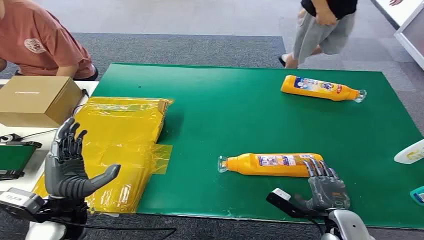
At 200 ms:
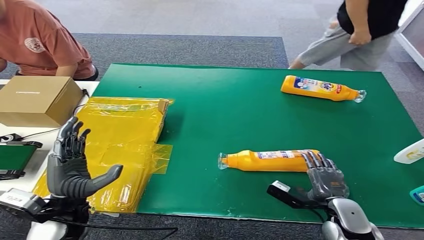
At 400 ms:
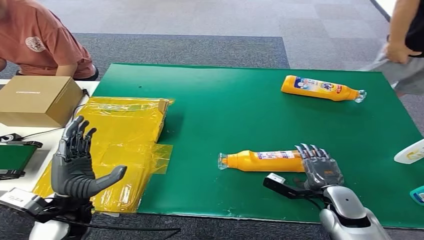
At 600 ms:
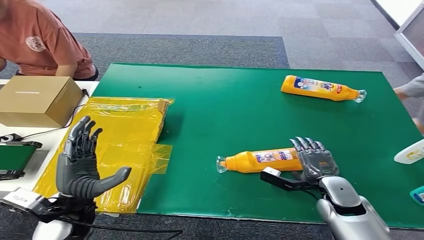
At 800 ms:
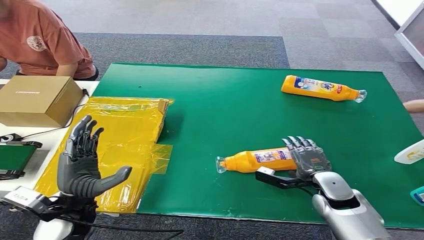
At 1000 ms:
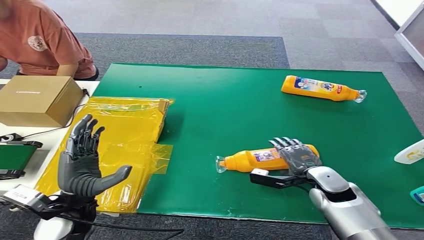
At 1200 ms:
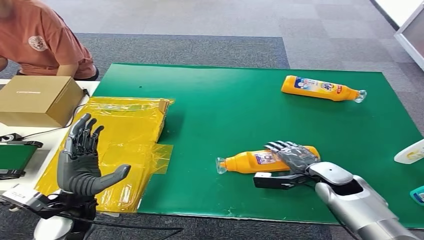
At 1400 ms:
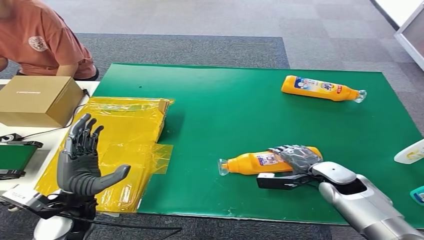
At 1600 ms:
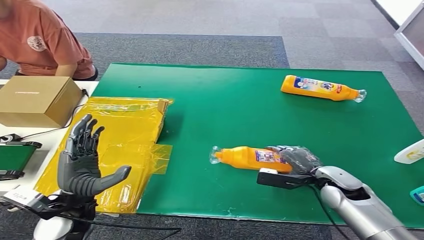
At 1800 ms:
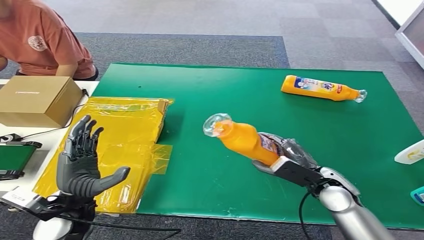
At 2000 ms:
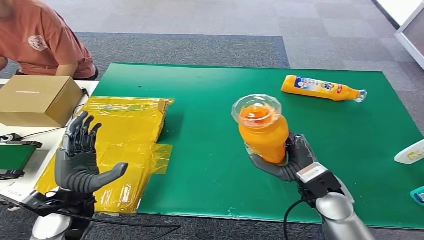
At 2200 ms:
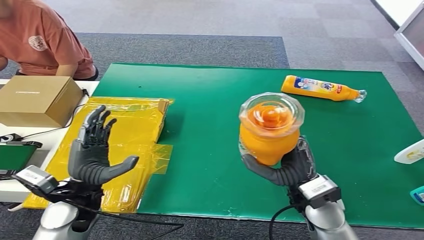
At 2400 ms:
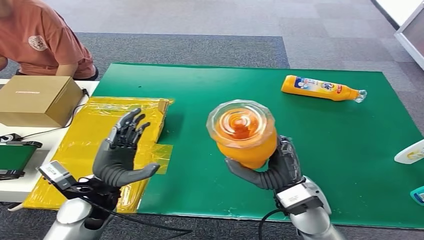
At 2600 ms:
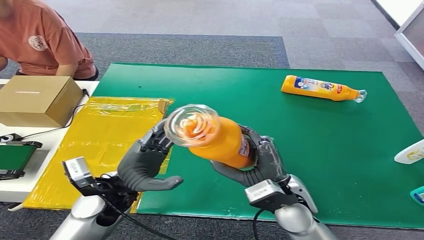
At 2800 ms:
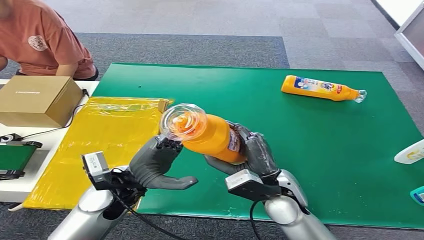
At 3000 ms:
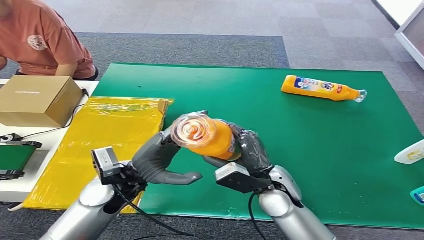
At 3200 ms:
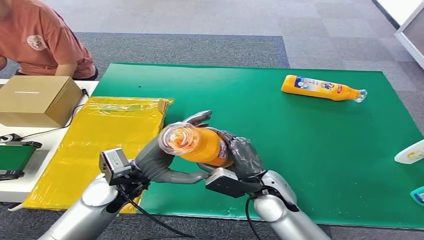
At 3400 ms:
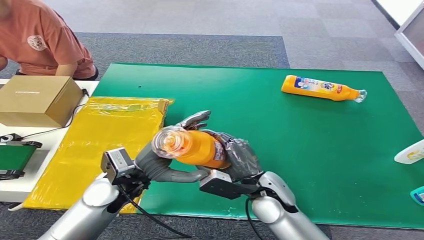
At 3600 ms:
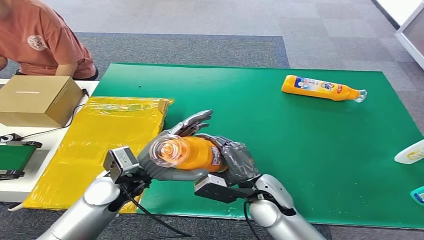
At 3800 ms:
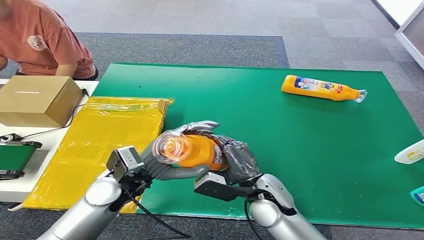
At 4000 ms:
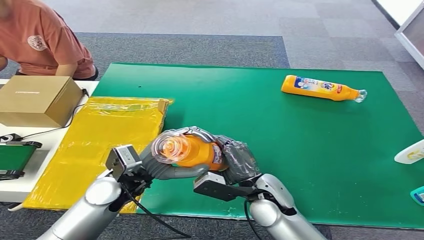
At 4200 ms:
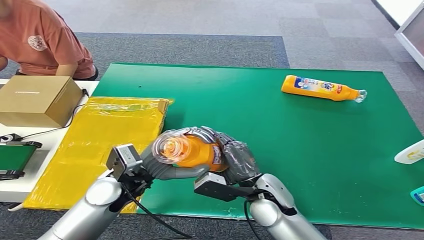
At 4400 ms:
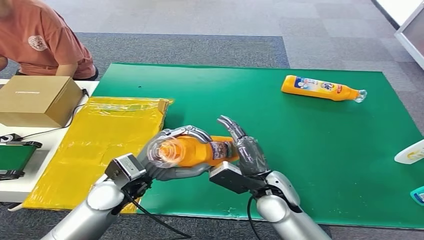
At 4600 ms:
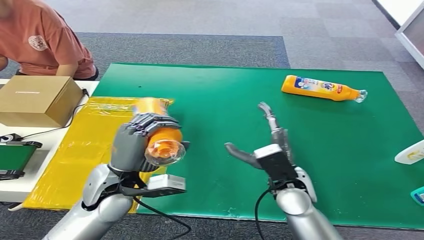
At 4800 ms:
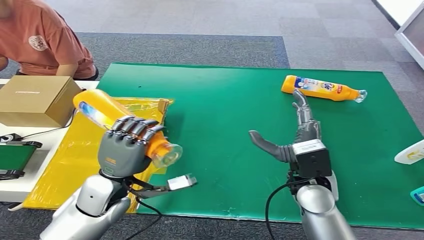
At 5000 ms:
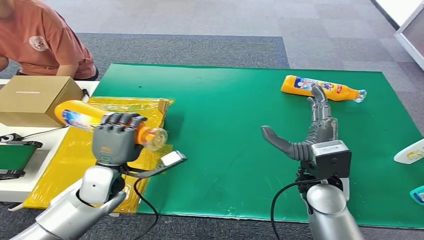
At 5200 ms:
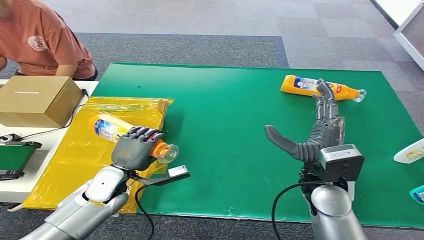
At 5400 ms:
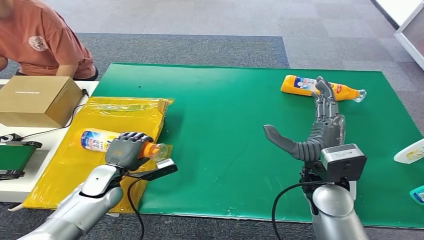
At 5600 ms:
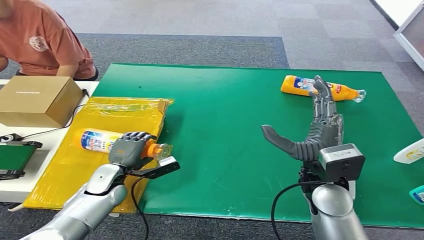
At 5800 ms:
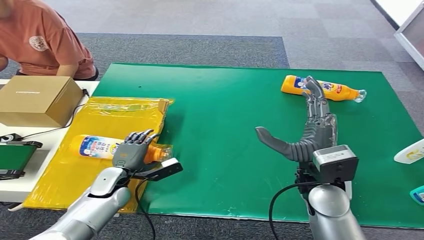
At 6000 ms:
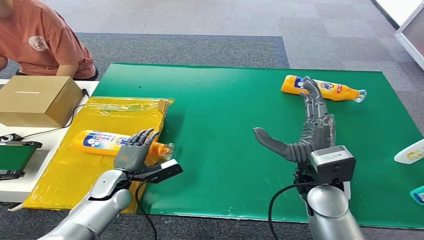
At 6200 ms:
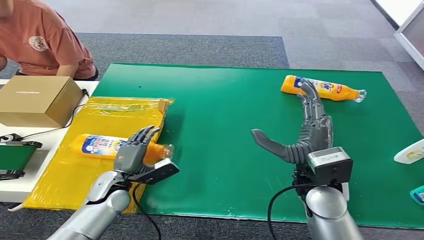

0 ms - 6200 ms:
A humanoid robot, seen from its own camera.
Step, 0 ms - 2000 ms: Pick up the bottle from the table.
Step, 2200 ms - 6000 ms: Turn the bottle to the front side.
4600 ms - 6200 ms: The right hand moves upward, about 5 cm; the left hand moves downward and to the left, roughly 15 cm.

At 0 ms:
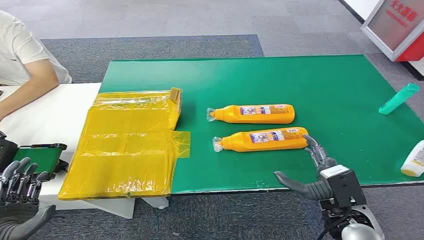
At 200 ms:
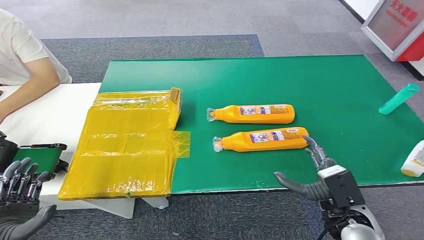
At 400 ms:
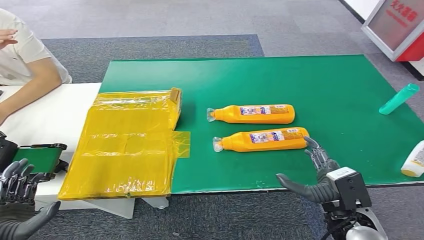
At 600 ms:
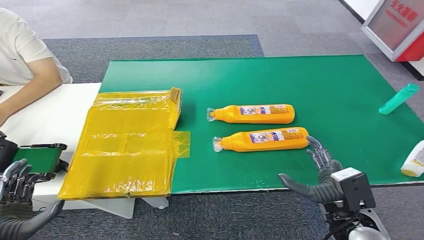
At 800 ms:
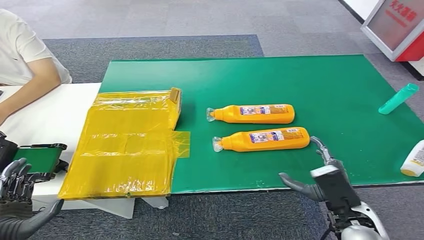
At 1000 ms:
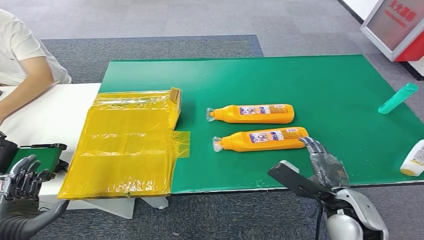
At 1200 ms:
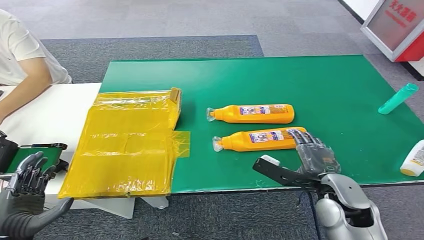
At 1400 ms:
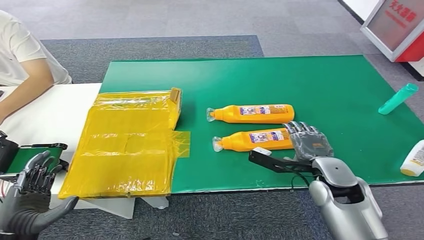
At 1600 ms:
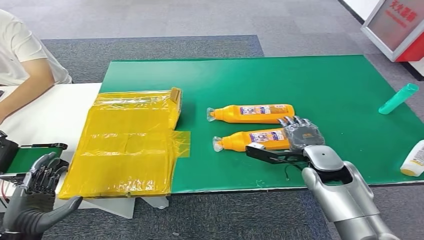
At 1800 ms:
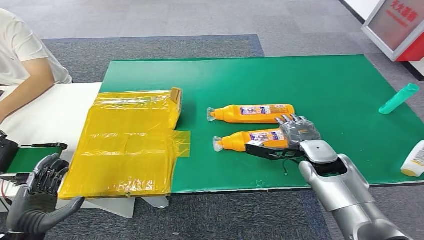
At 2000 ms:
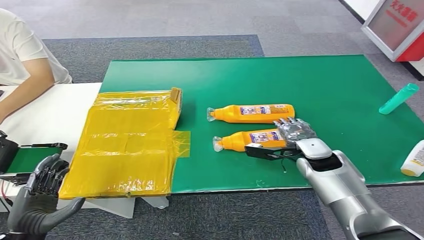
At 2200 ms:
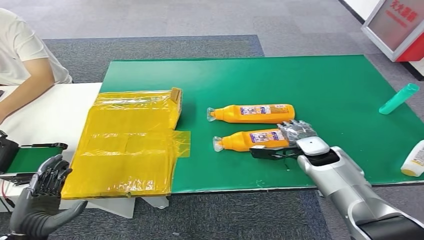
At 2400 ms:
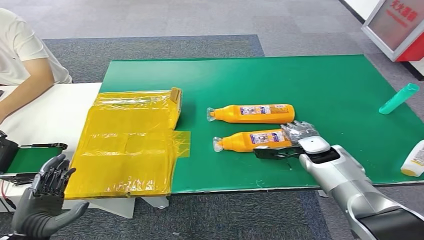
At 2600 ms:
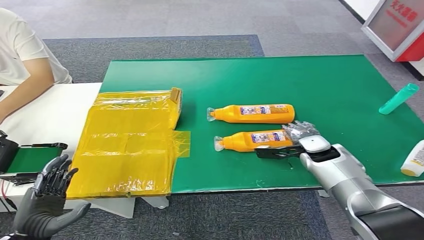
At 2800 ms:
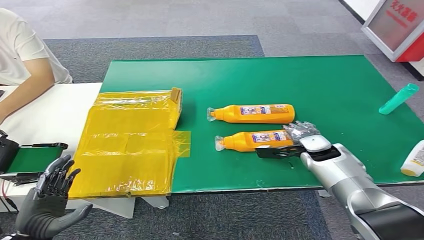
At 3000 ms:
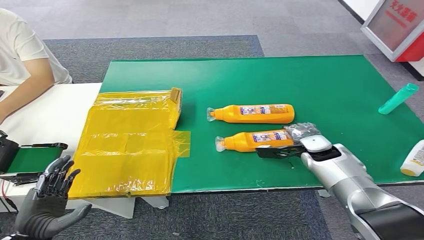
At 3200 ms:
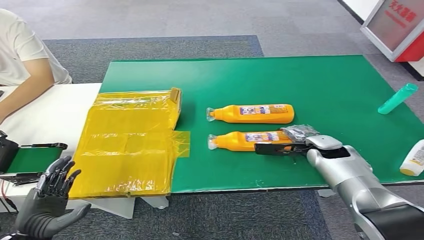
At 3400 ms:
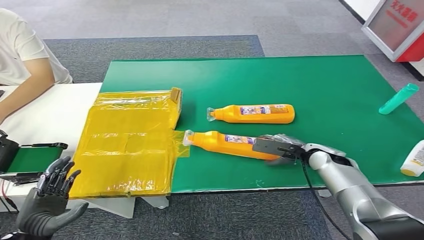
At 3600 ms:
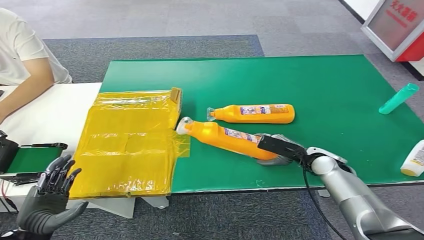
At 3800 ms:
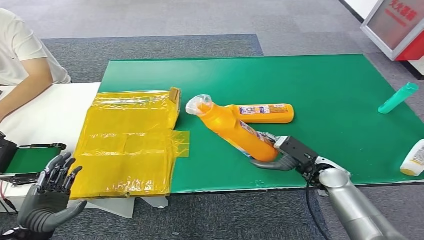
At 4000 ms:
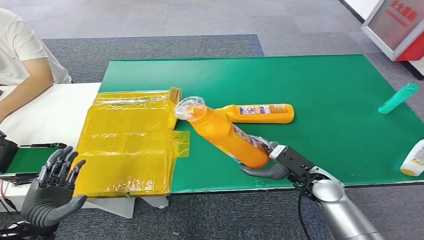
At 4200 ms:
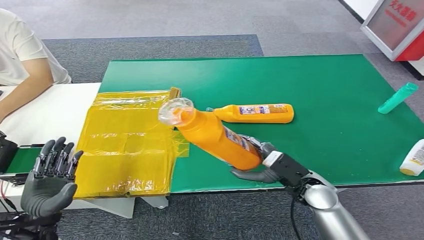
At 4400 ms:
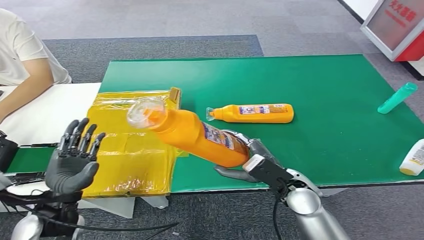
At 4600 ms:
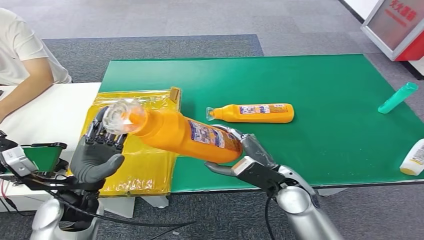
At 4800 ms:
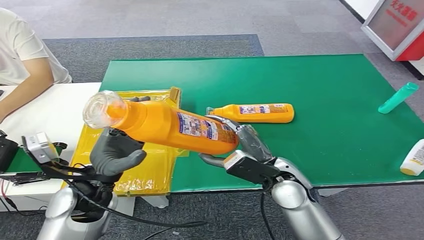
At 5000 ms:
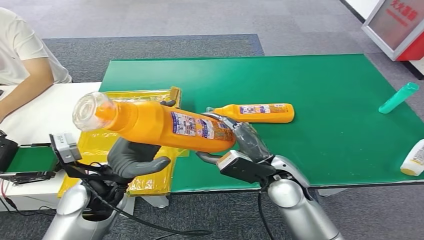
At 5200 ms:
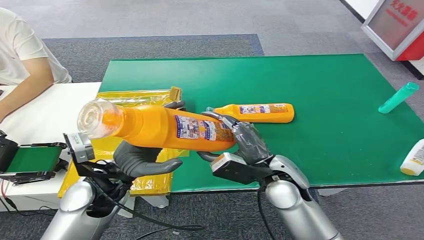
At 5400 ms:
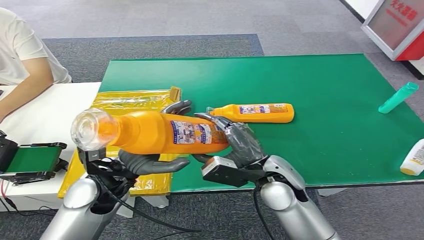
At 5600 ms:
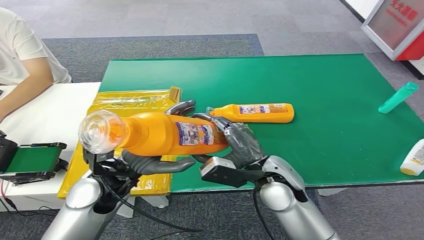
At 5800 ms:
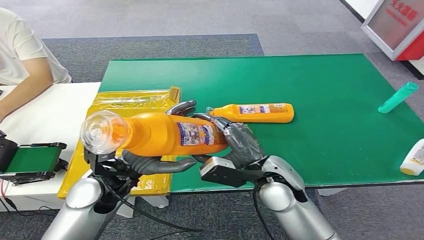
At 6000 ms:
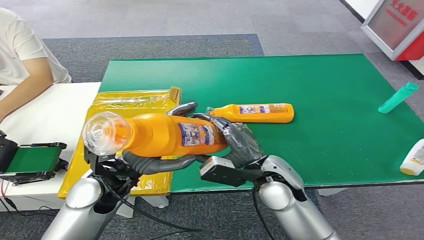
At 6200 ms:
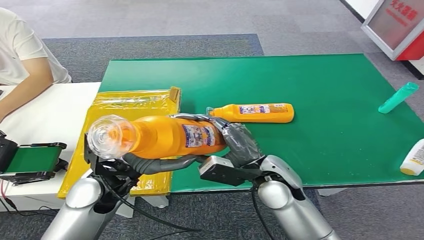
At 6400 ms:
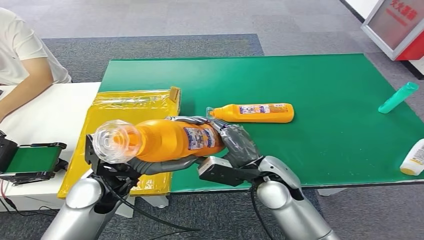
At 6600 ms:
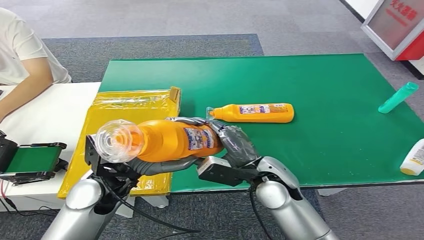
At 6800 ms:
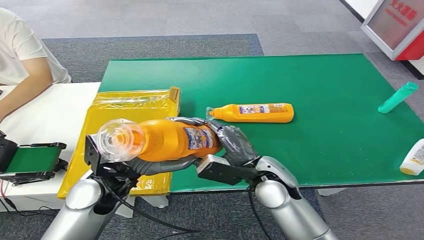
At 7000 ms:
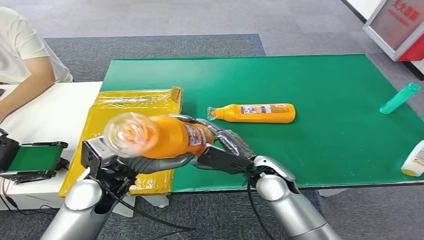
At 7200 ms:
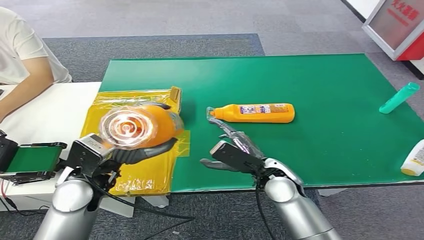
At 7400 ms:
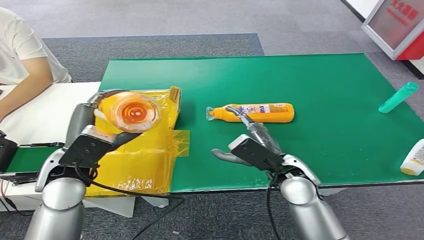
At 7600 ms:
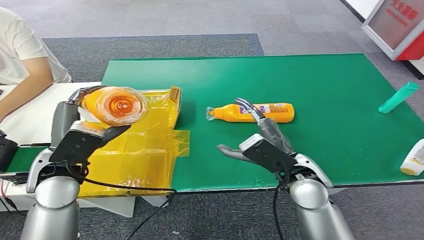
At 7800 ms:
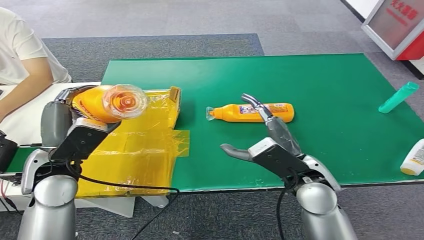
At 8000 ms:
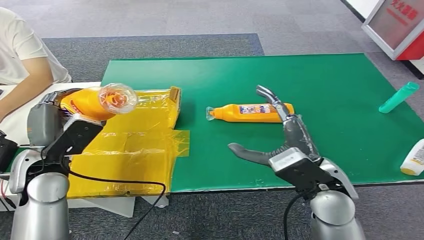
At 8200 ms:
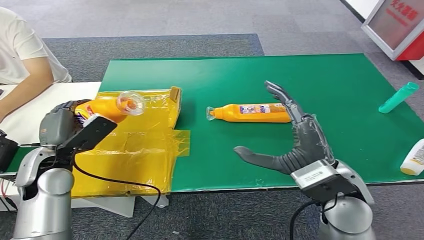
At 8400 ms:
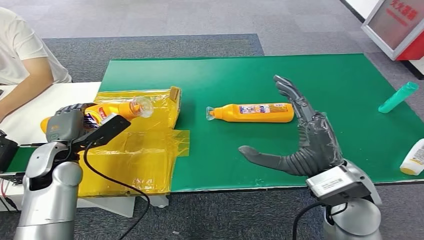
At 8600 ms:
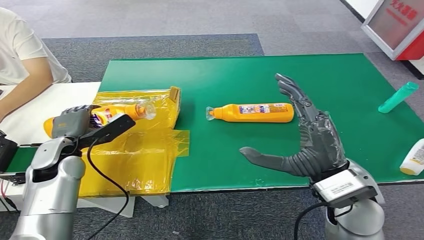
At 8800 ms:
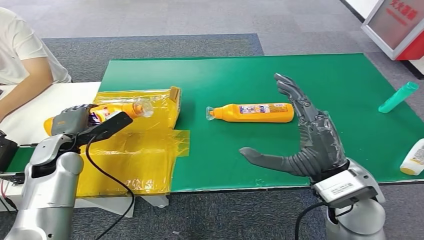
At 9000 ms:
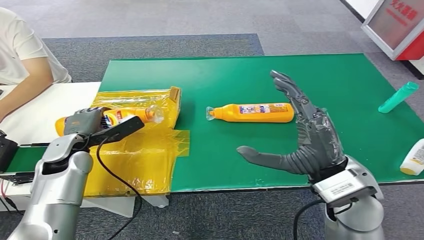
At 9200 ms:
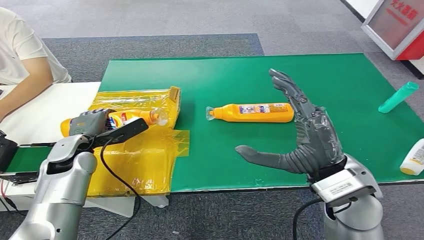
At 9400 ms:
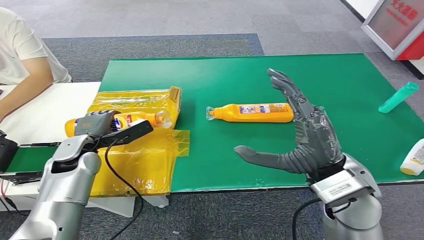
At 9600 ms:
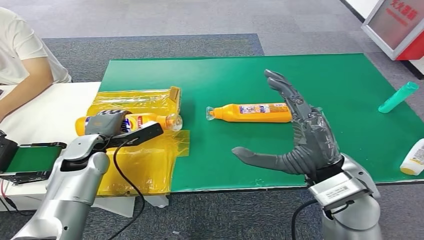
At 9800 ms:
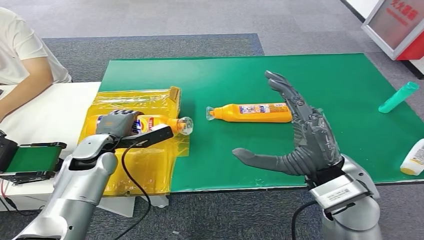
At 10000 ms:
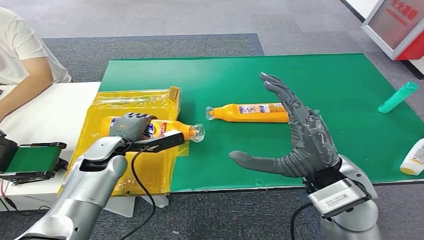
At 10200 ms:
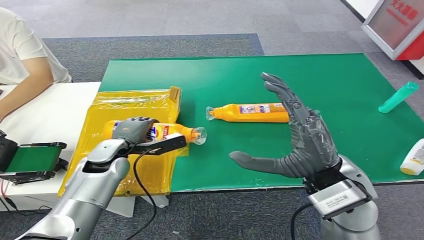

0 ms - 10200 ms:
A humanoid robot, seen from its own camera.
Step, 0 ms - 4400 ms: Pick up the bottle from the table.
1400 ms - 3000 ms: The right hand is displaced forward by about 10 cm.
8800 ms - 10200 ms: The left hand heads to the right, covering approximately 10 cm.
